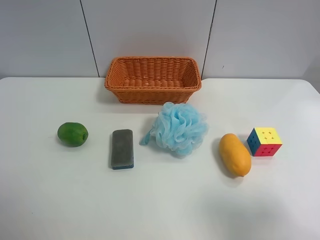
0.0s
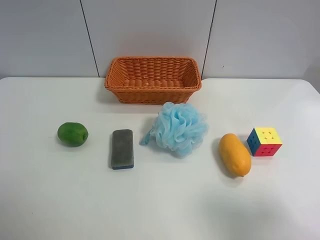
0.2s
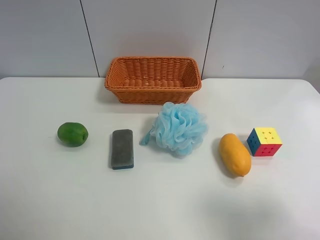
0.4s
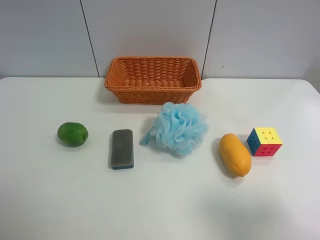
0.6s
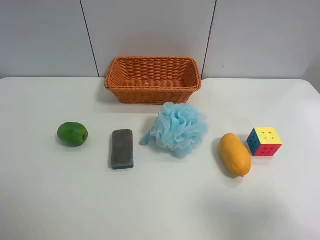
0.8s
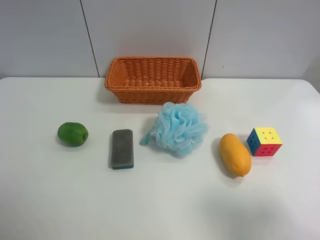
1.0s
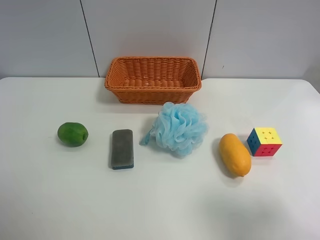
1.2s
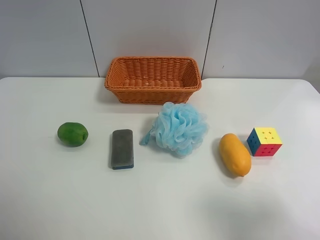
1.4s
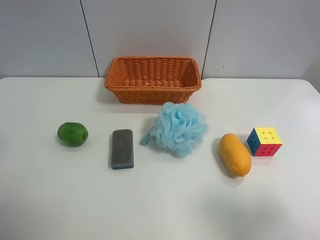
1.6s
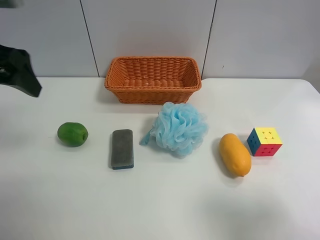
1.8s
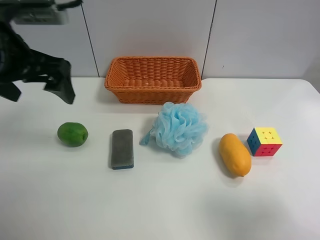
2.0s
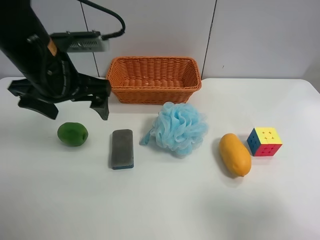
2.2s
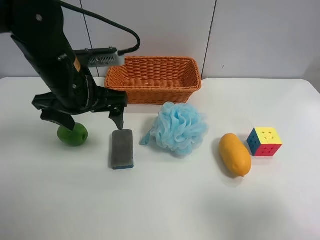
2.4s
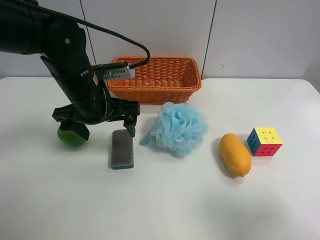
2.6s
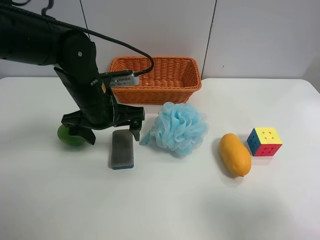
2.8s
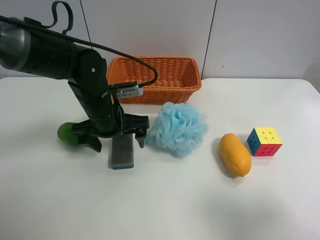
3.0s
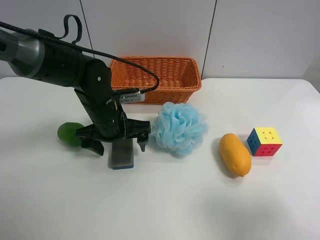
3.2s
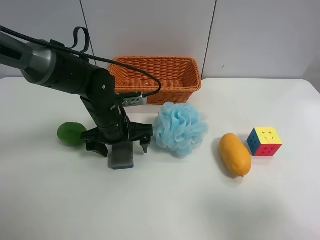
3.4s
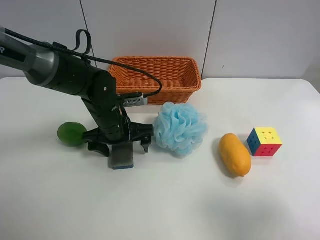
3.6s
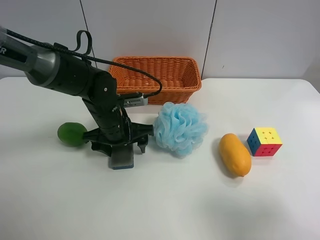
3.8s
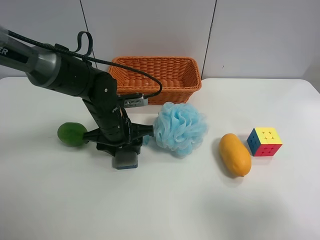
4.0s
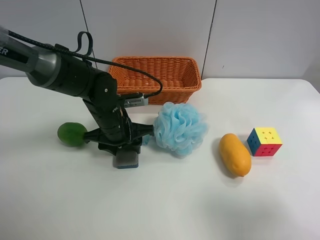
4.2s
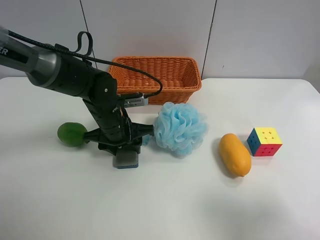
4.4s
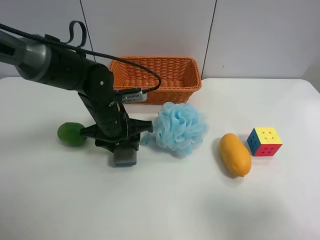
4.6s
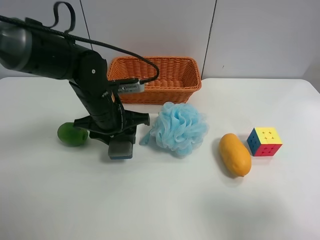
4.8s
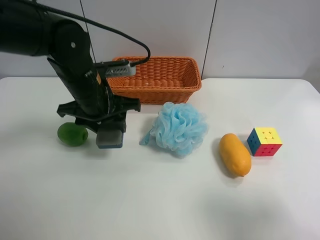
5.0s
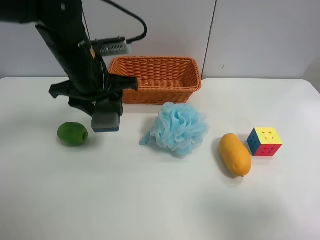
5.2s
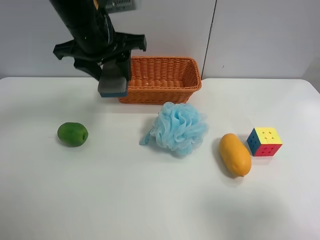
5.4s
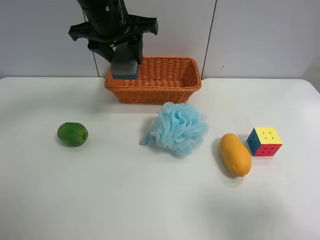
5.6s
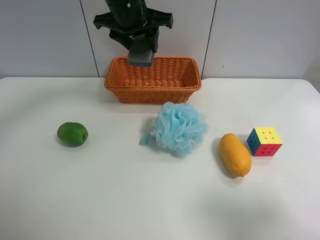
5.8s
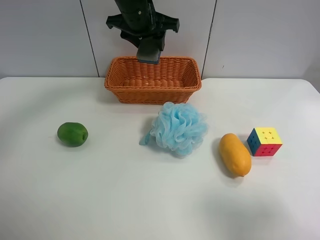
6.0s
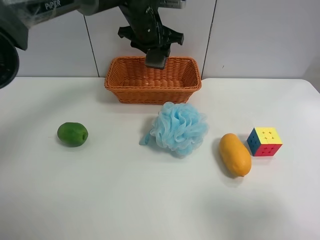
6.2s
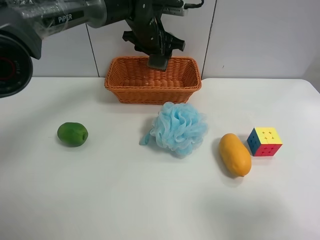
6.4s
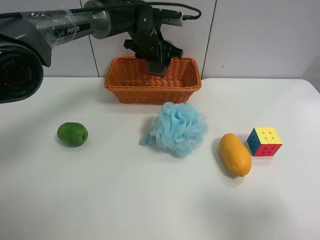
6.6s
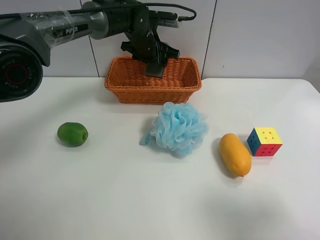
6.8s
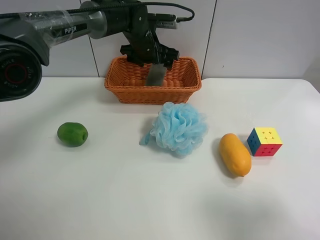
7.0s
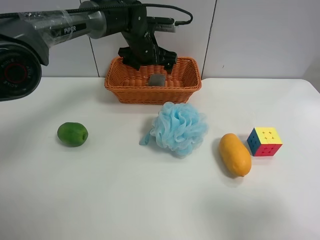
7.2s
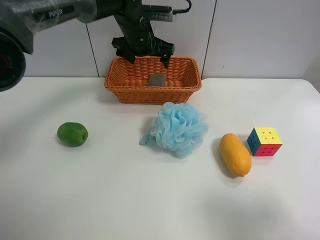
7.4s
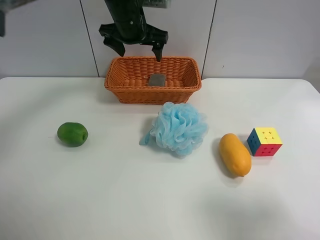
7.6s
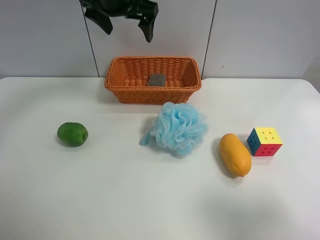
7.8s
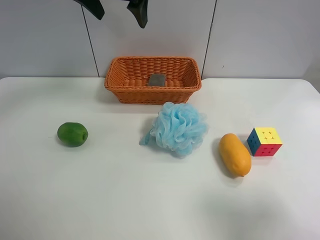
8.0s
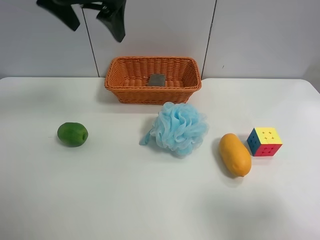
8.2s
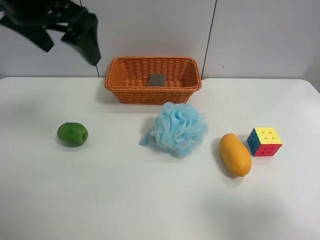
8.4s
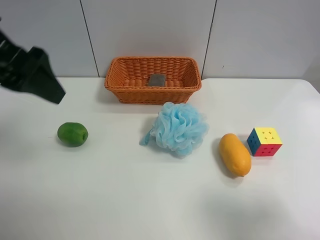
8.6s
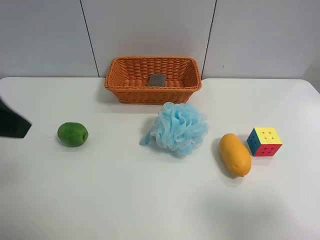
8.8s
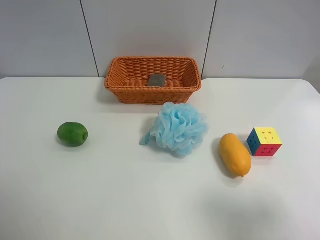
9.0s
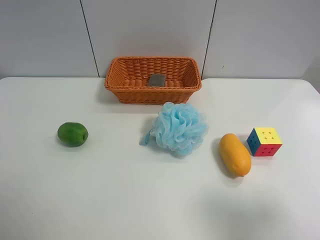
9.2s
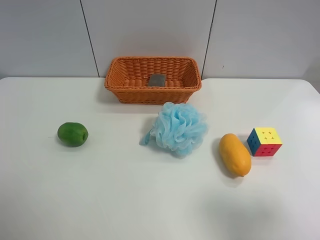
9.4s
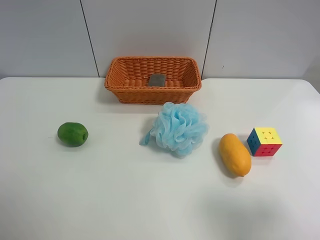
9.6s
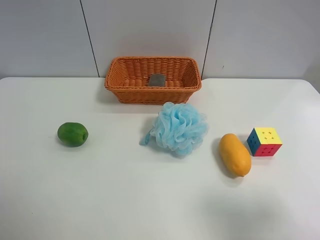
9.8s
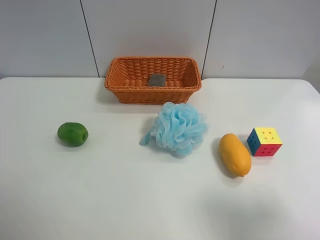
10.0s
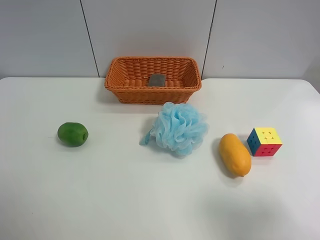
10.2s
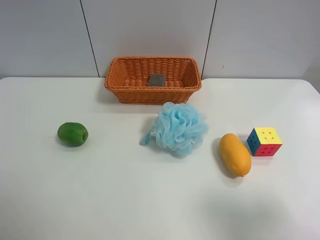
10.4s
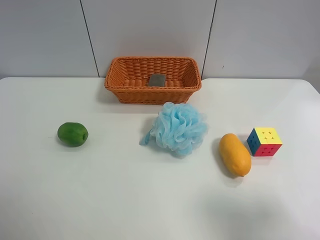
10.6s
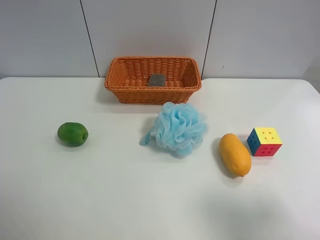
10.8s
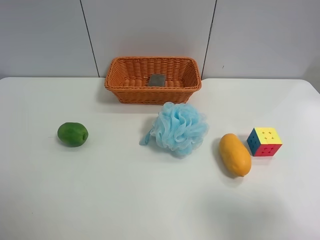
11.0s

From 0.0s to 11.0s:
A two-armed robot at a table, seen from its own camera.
Task of the whole recording: use the left gripper to grab items from the table and place them in the basket.
Step, from 0.0s to 4.0s: Grasp the chalkboard eraser with the left gripper.
Step, from 4.2s to 7.2s: Place the chalkboard eraser into the basket with the left gripper.
From 1.6s to 3.2s: The left gripper heads downward, to the right and forward, covering about 30 cm.
From 3.2s to 4.8s: The left gripper closes up.
From 4.8s to 6.2s: The left gripper moves forward, upward and to the right, roughly 20 cm.
From 6.2s to 7.8s: The left gripper goes some 15 cm upward, to the left and backward, and opens its fingers.
From 7.8s to 9.4s: The left gripper heads backward and to the left, covering about 40 cm.
